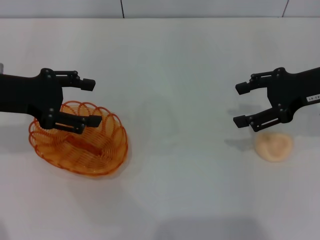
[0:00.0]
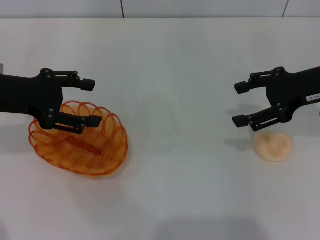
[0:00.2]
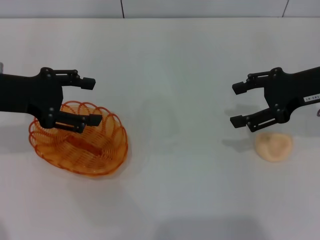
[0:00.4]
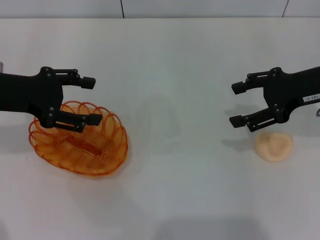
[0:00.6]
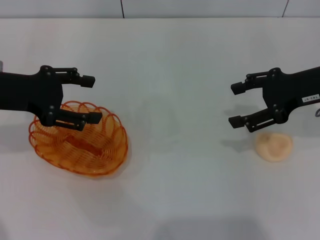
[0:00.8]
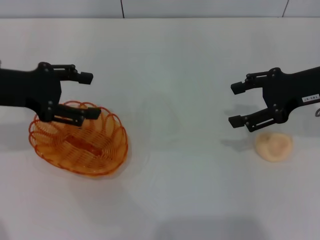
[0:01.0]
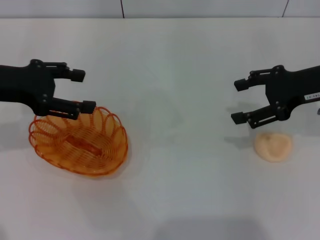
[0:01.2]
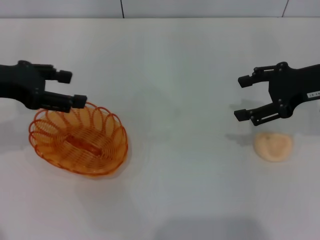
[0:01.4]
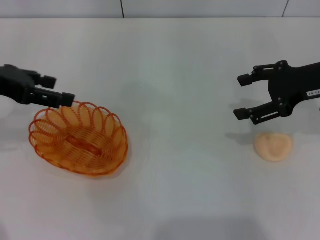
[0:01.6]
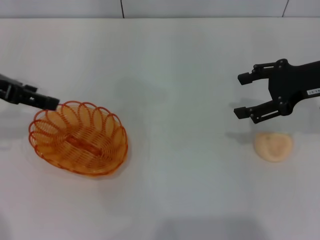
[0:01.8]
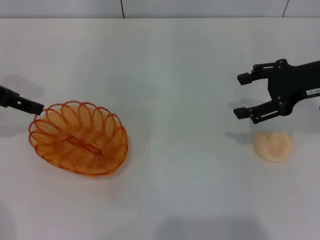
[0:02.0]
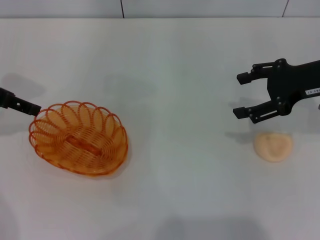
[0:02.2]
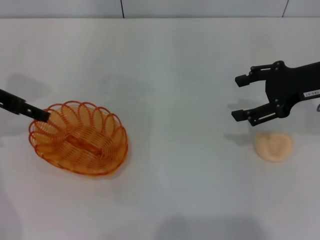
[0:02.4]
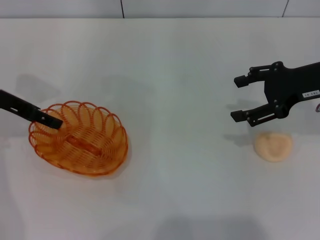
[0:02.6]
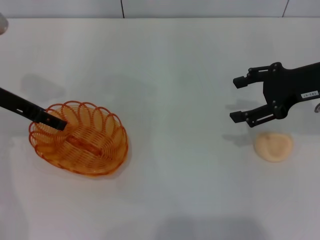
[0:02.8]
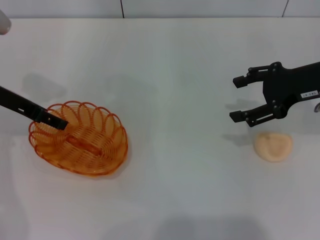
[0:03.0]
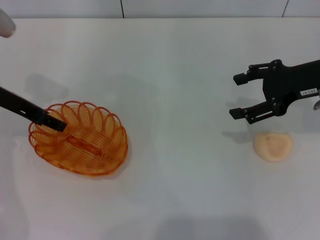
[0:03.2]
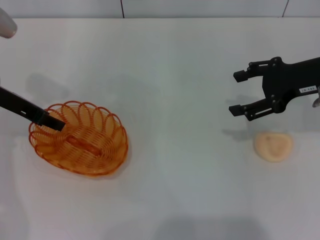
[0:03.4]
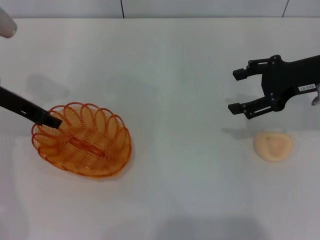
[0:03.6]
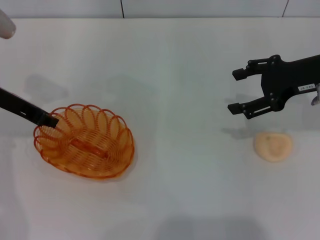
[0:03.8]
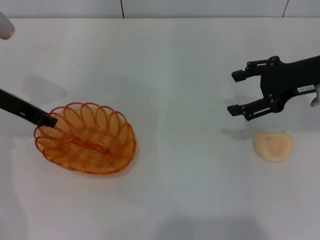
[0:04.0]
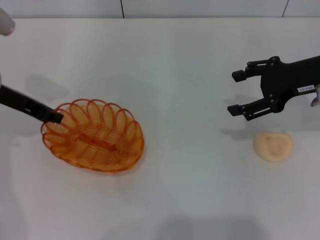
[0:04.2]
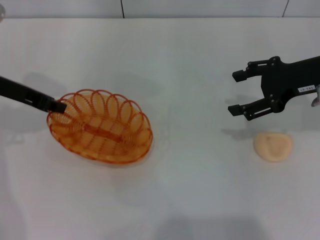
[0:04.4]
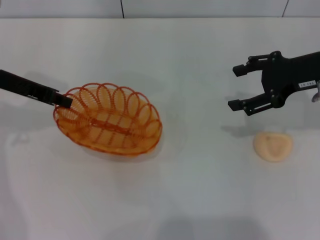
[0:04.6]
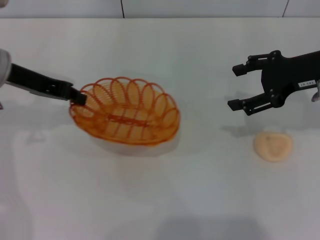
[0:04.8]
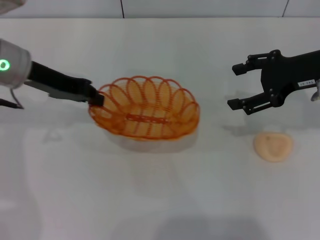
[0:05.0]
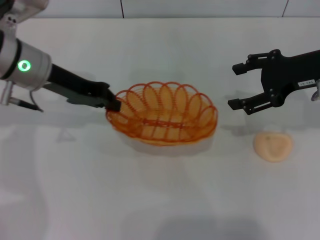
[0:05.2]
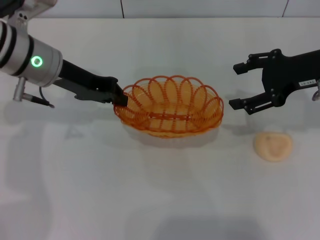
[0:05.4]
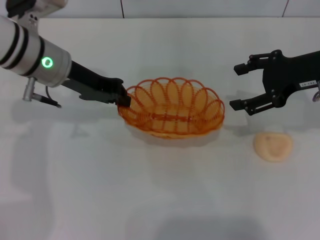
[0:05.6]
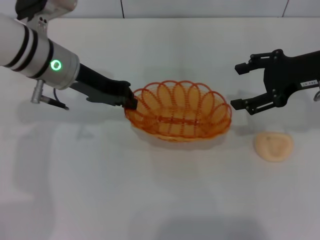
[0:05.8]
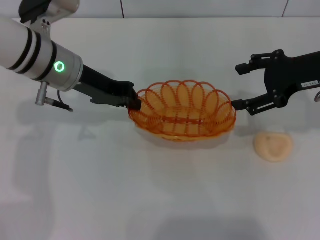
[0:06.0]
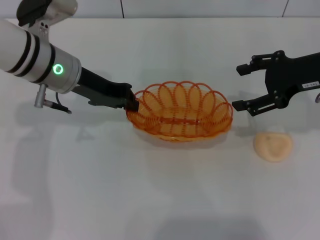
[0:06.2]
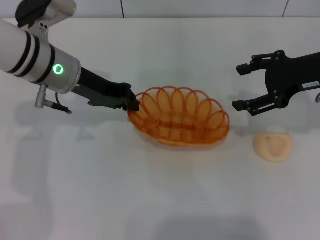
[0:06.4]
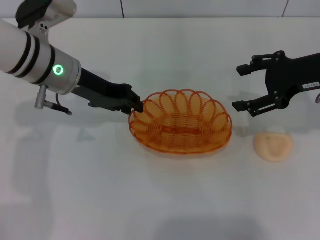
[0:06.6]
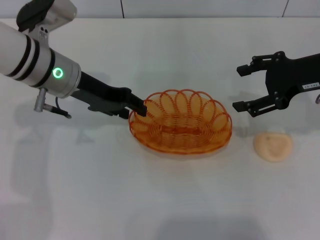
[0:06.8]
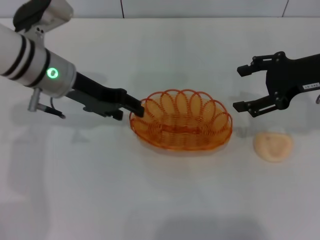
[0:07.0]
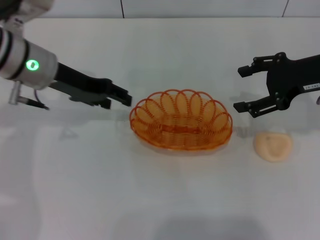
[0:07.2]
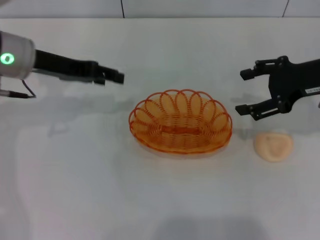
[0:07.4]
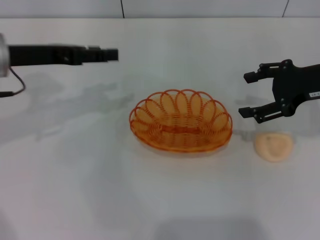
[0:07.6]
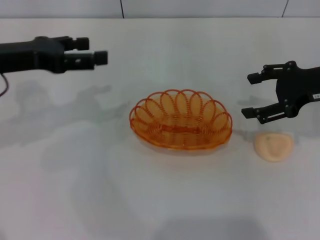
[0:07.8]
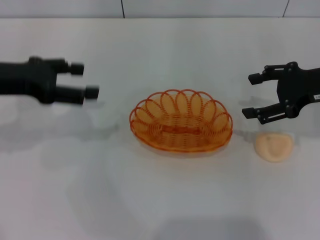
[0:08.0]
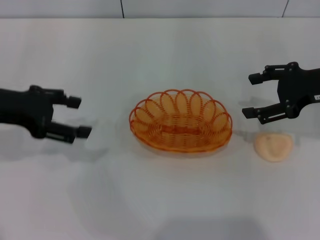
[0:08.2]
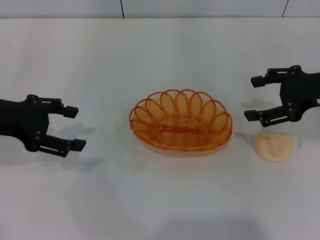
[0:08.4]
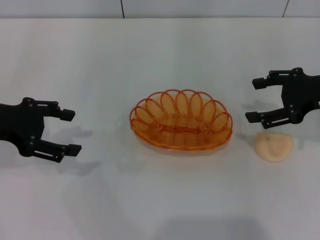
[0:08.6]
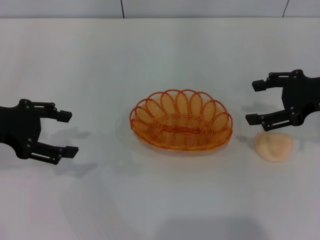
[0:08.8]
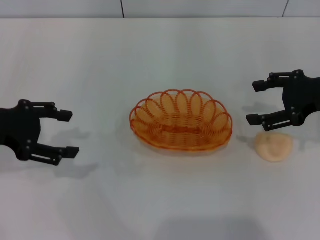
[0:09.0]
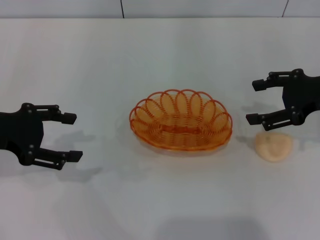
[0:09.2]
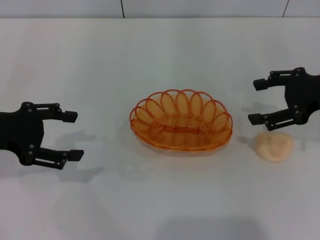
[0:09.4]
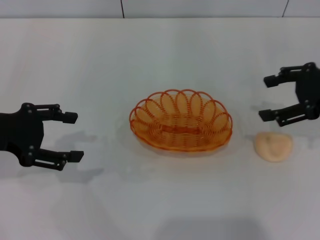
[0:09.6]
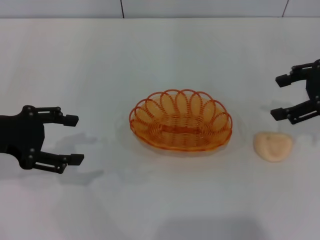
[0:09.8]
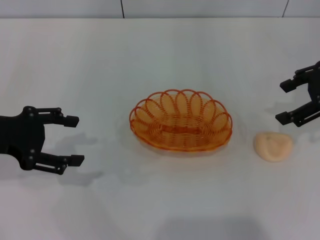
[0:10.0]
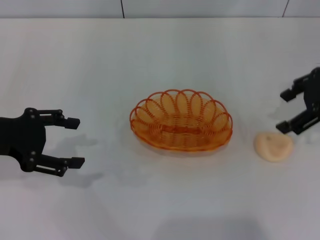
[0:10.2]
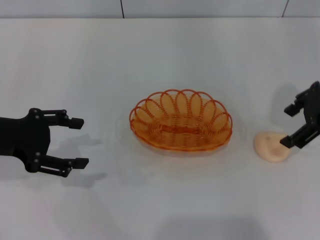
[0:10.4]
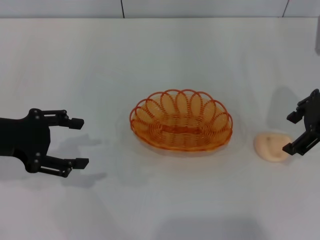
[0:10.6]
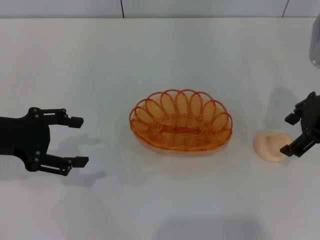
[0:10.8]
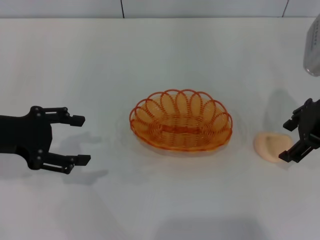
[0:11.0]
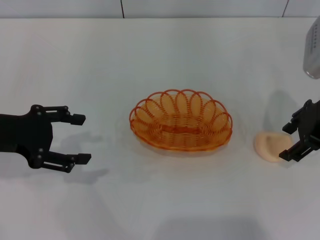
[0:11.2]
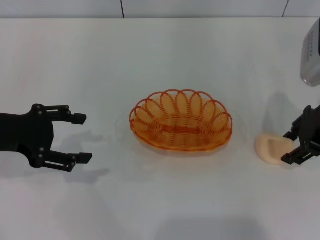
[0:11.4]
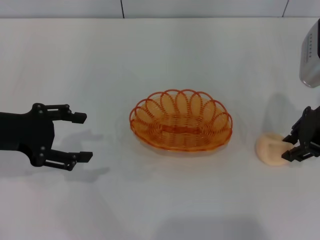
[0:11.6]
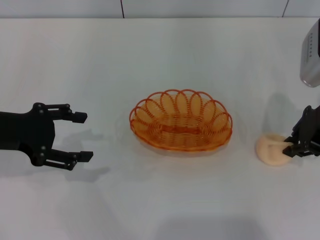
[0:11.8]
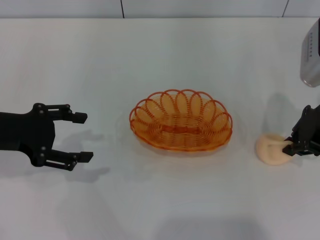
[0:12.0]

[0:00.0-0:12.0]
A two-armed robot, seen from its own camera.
Step, 0:00.0 to 0:04.6: Pick up the basket with the left gripper.
Step, 0:04.8 to 0:07.2: Place the basket in the center of view with the left gripper.
0:01.6 to 0:03.0: The left gripper heads downward, covering roughly 5 cm.
0:03.0 to 0:04.4: The left gripper closes up.
0:04.4 to 0:06.0: The left gripper shifts roughly 10 cm to the right.
0:06.0 to 0:07.6: The left gripper heads to the left, covering about 10 cm, and opens its fingers.
0:07.6 to 0:09.0: The left gripper goes approximately 5 cm backward.
0:09.0 to 0:10.4: The right gripper moves about 5 cm.
0:10.4 to 0:12.0: The right gripper closes.

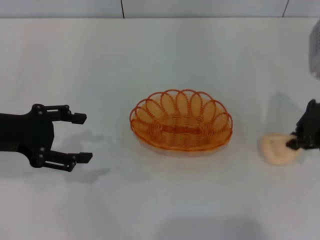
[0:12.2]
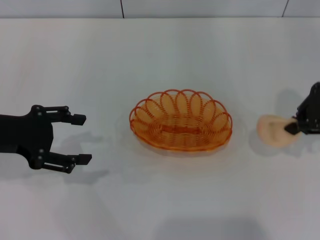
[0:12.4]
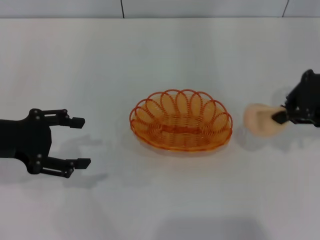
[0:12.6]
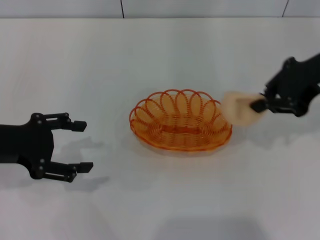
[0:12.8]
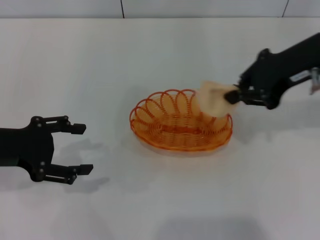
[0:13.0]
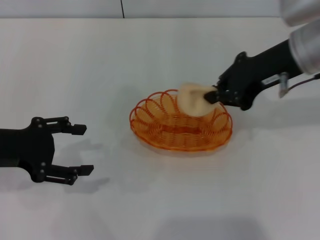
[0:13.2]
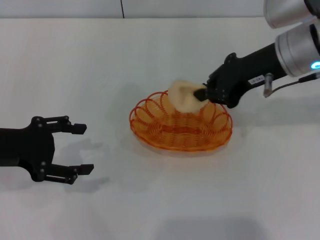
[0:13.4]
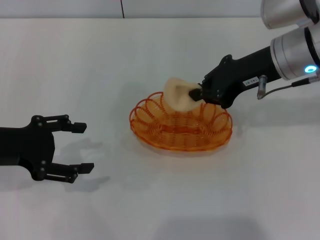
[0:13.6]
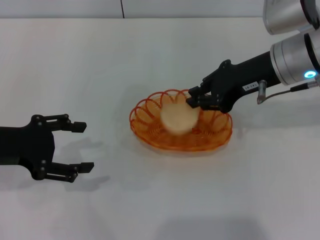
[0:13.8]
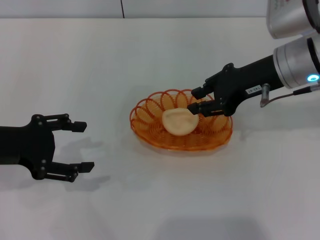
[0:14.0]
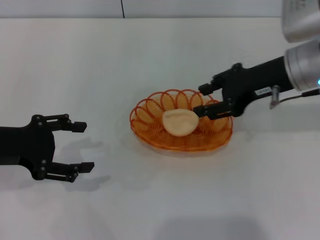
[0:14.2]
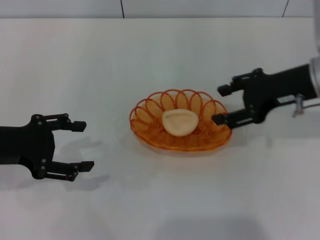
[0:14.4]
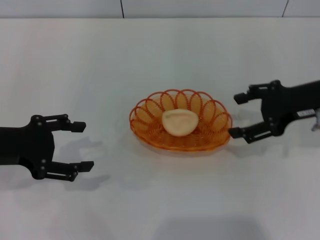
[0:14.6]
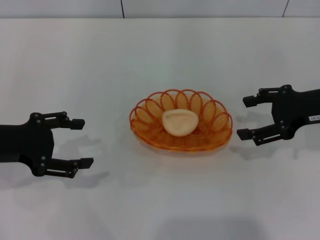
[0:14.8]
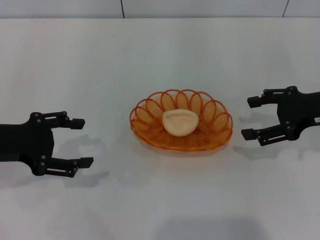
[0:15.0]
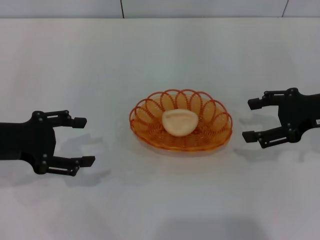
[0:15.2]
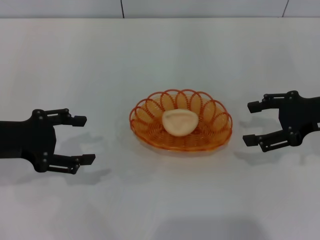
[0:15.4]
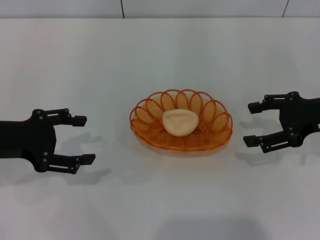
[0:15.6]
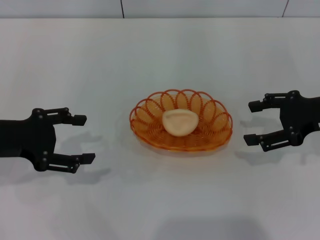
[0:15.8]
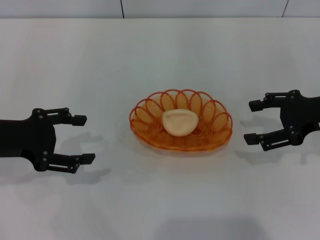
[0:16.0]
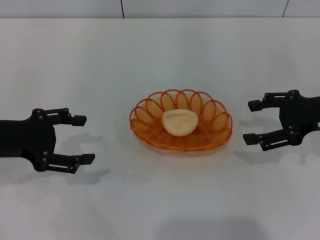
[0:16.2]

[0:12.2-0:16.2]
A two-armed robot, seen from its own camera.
Step, 0:12.6 to 0:14.2: Place the egg yolk pastry into the basket with the right gripper.
0:12.2 to 0:13.6: The right gripper moves to the left, about 10 cm.
0:13.6 to 0:14.8: The right gripper goes about 10 cm to the right and downward, and opens up.
0:14.8 to 0:16.2: The grippers stay close to where they were, moving slightly.
